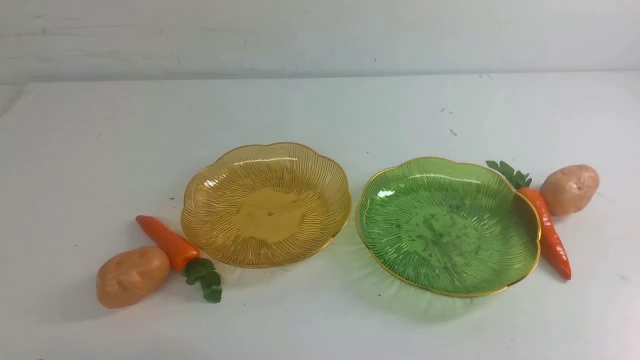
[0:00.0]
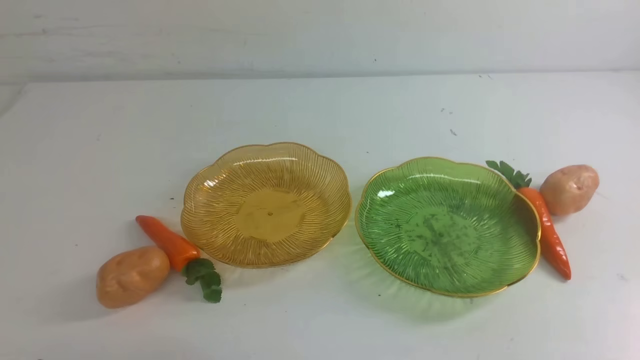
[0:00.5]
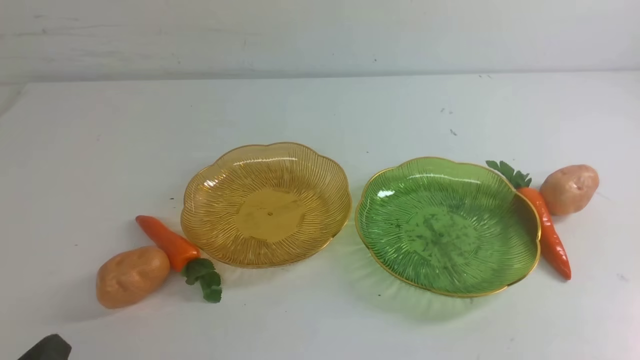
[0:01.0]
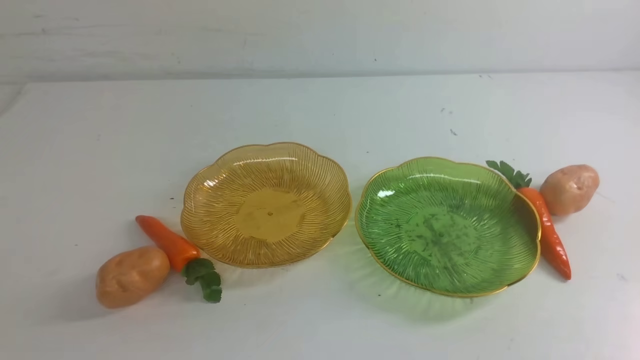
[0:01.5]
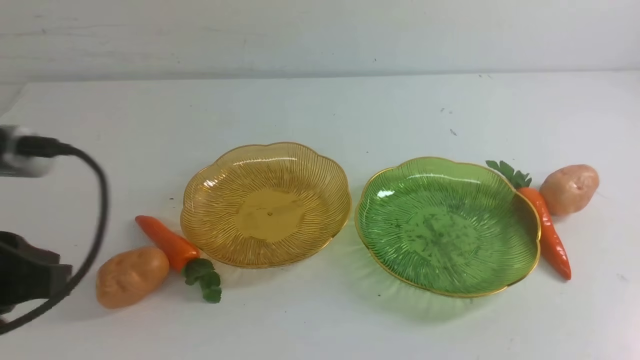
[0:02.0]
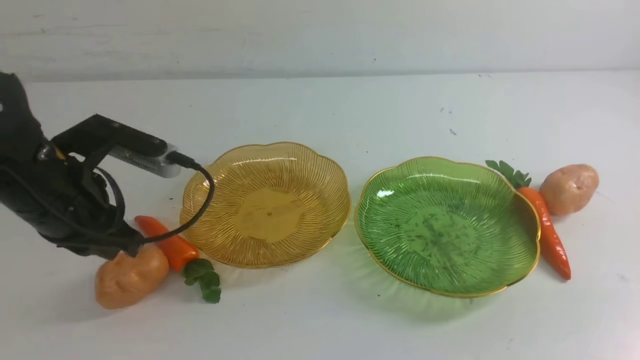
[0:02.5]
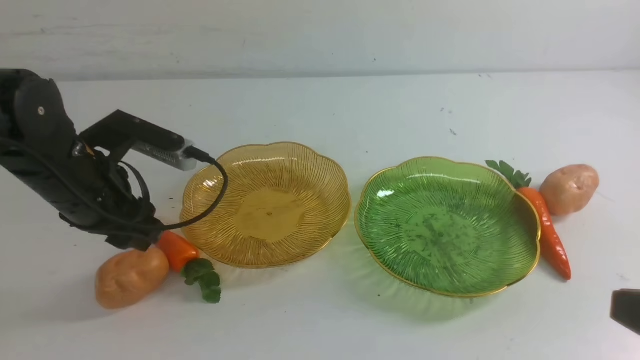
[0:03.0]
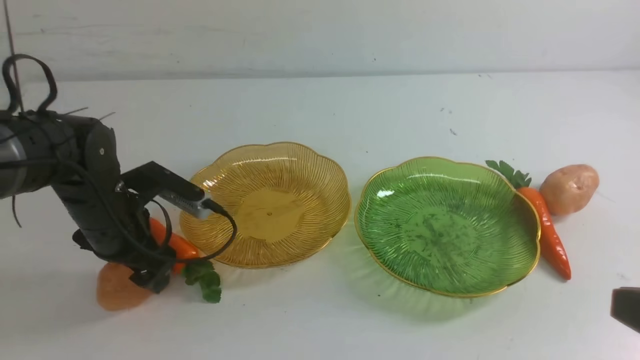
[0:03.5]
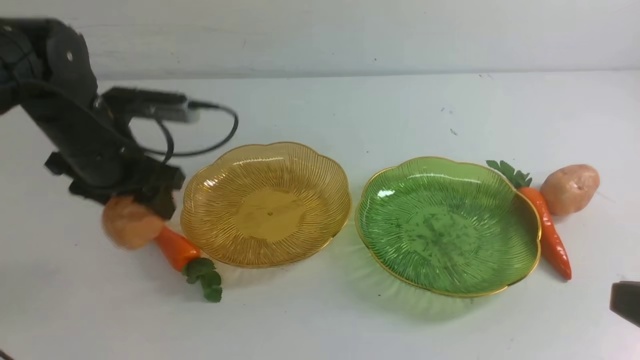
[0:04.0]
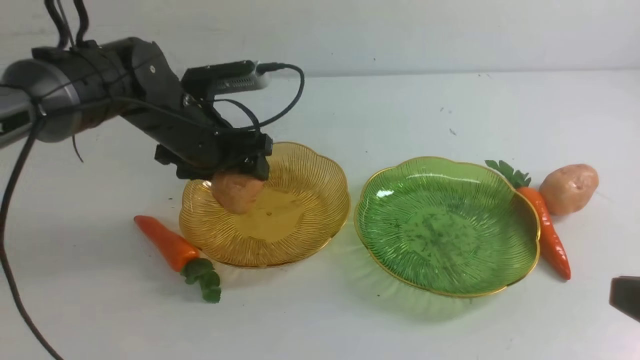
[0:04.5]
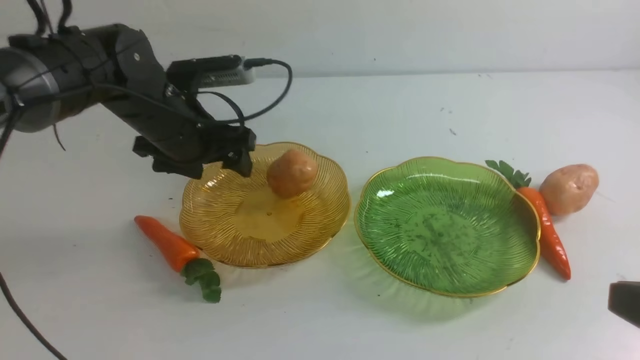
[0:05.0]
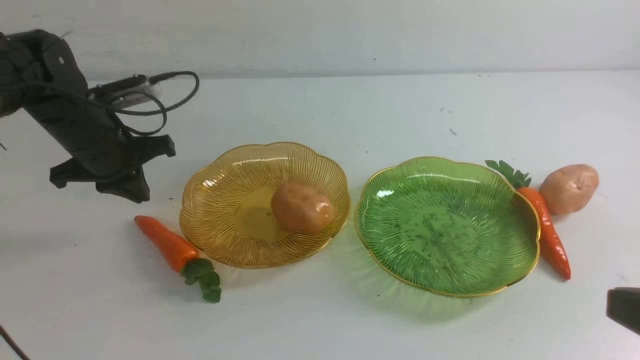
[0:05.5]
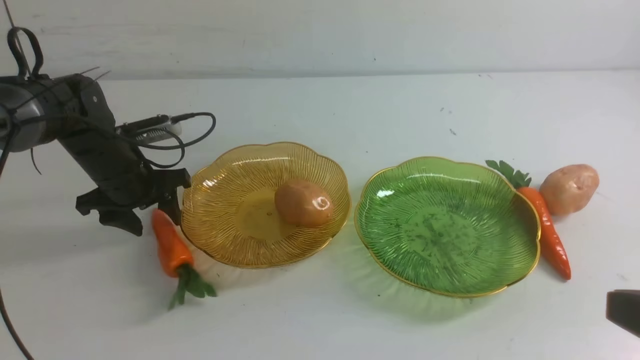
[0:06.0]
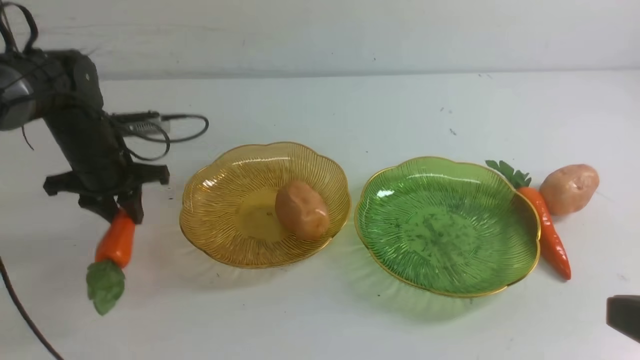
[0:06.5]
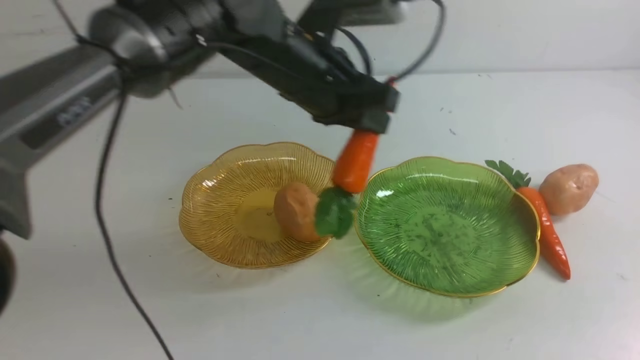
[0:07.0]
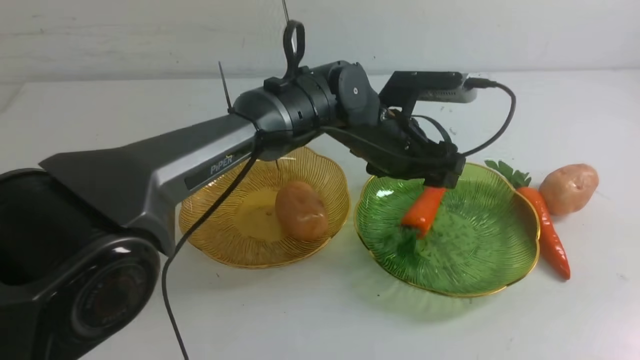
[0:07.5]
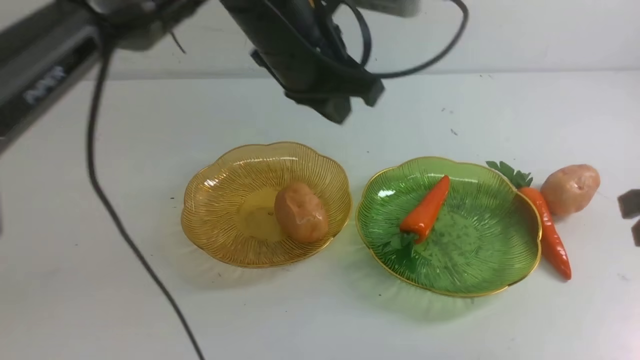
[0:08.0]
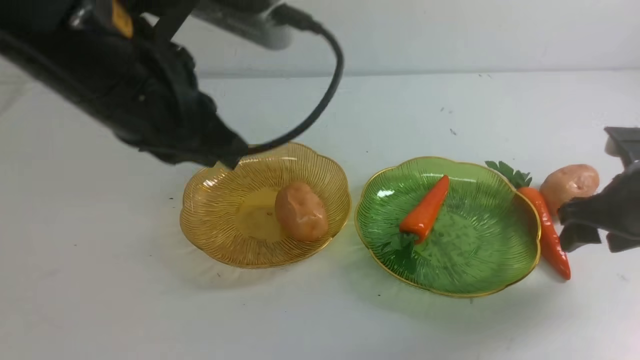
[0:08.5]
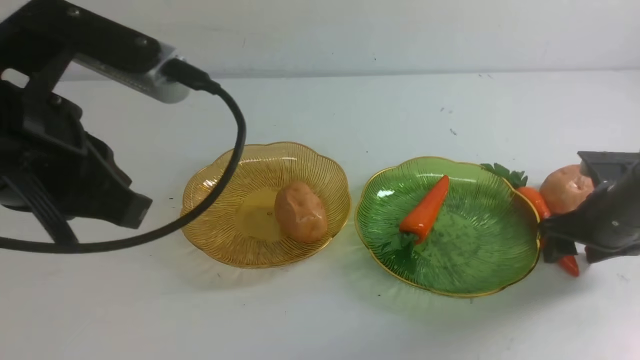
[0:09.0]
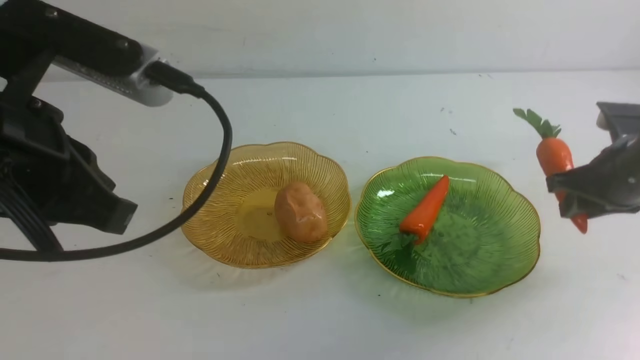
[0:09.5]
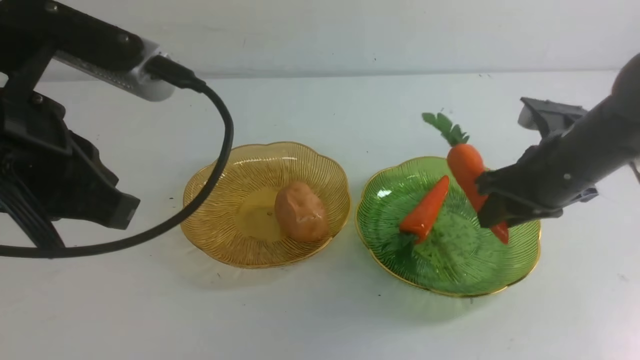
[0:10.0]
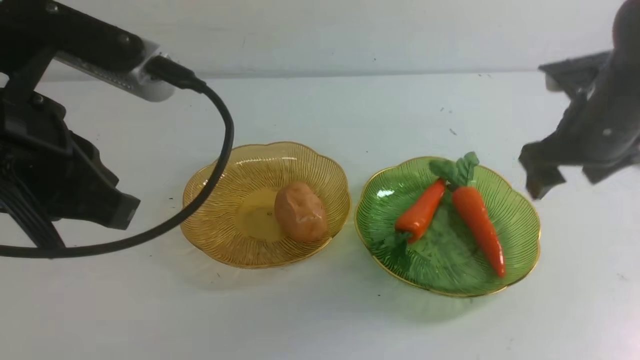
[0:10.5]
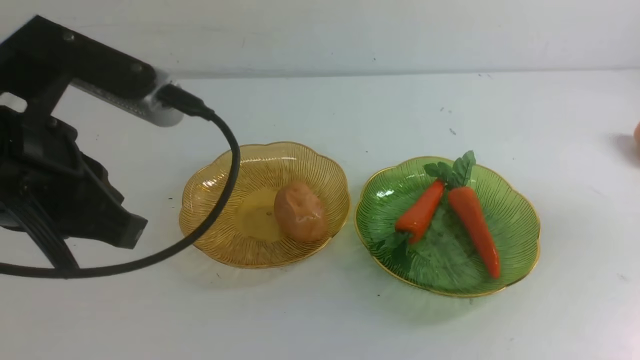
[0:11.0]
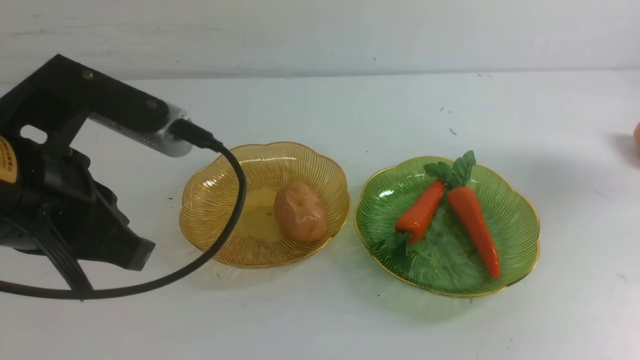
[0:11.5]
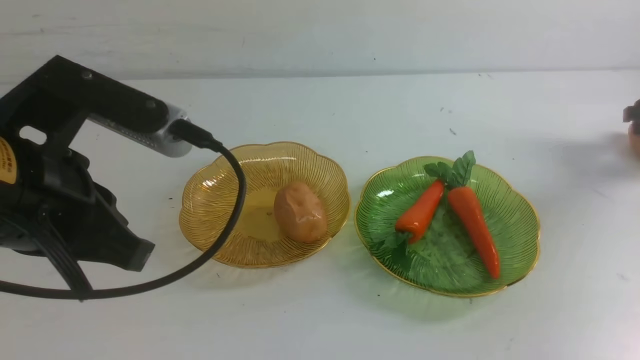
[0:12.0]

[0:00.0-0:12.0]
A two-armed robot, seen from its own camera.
Step, 0:00.0 to 0:04.5: Grab a potato with your left arm and put it on the left plate.
Step, 0:05.0 to 0:07.5: use the left arm to grab a carrot and put it into the right plate.
Step, 0:08.0 to 0:10.0: use the right arm to grab a carrot and put it into the right plate.
0:00.0 to 0:02.0: The left gripper shifts approximately 20 cm forward and upward.
0:02.0 to 0:04.0: The right gripper shifts roughly 10 cm upward; the left gripper moves forward and to the right, some 20 cm, and opens up.
0:04.0 to 0:06.0: The left gripper is displaced to the left by roughly 5 cm, and closes up.
0:06.0 to 0:08.0: The left gripper shifts approximately 25 cm backward and upward, and travels to the right and back again, about 25 cm each way; the right gripper heads forward and downward, covering approximately 30 cm, and opens up.
0:08.0 to 0:10.0: The right gripper travels upward and to the left by roughly 10 cm, and closes, then reopens.
0:10.0 to 0:12.0: The right gripper goes some 30 cm to the right, forward and downward.

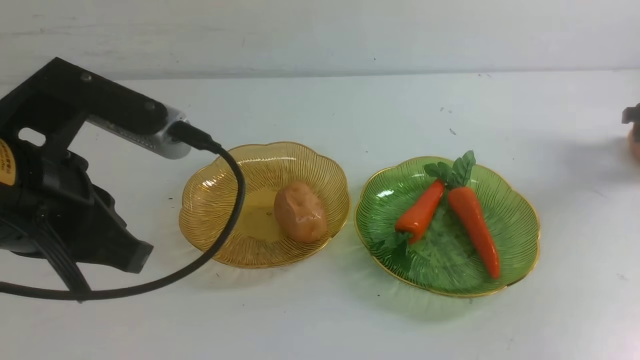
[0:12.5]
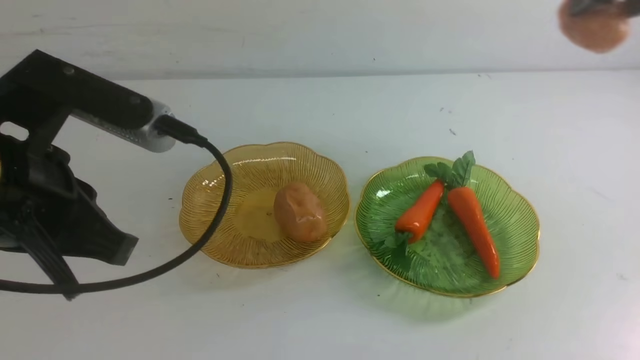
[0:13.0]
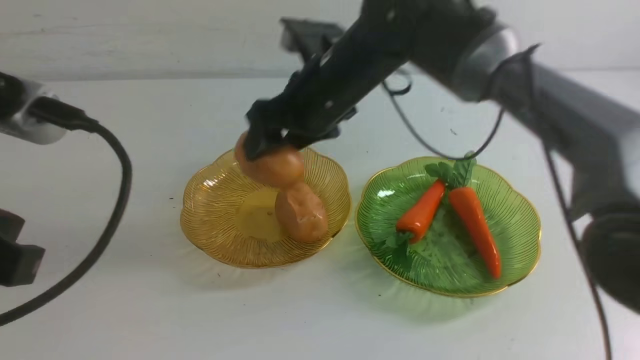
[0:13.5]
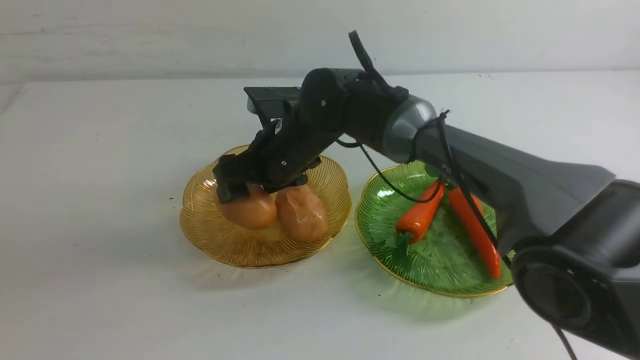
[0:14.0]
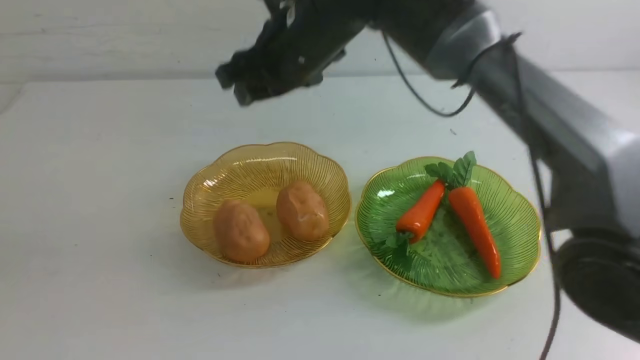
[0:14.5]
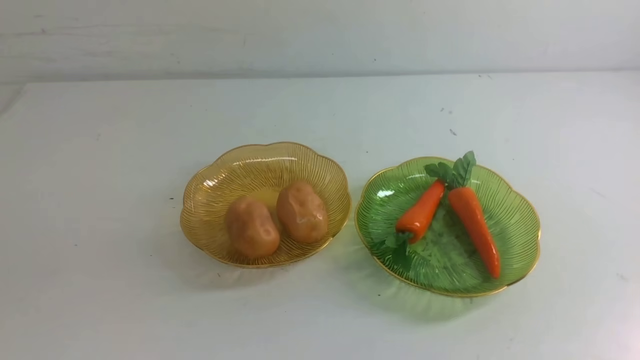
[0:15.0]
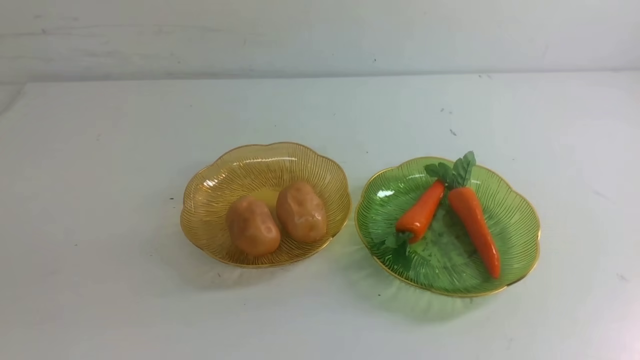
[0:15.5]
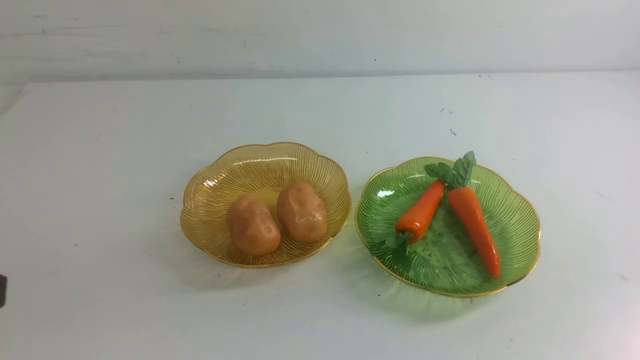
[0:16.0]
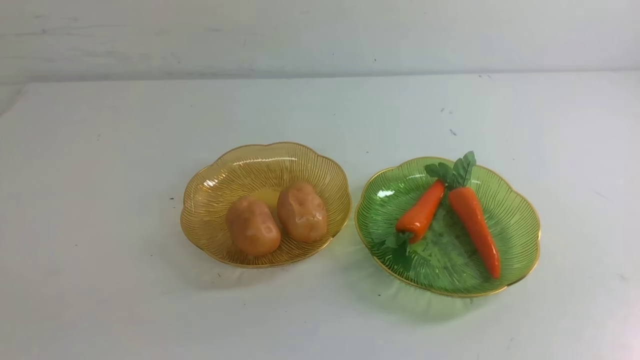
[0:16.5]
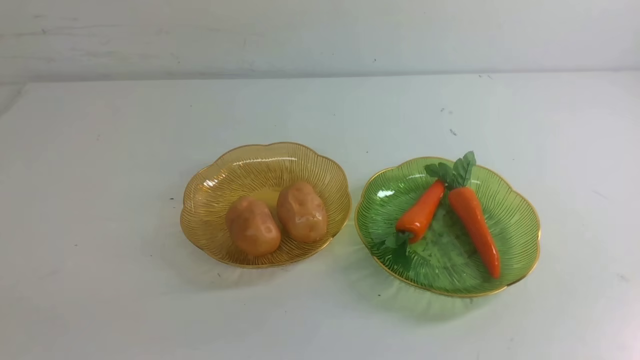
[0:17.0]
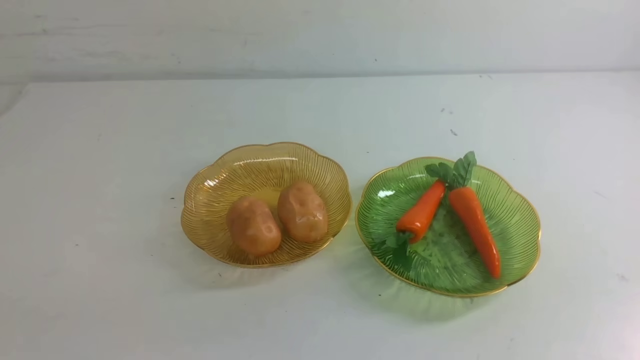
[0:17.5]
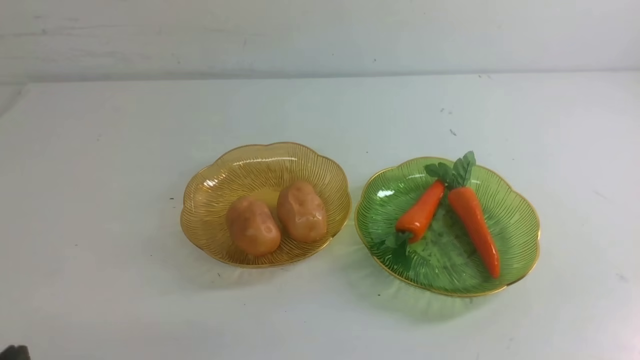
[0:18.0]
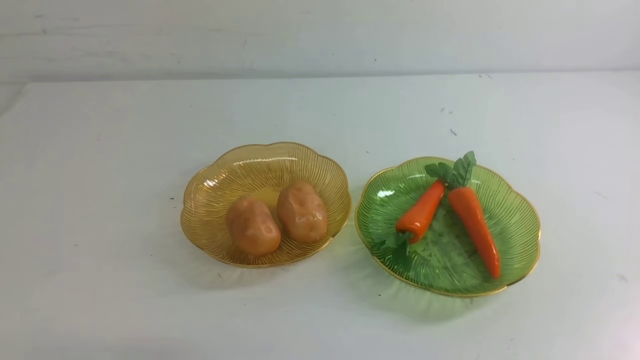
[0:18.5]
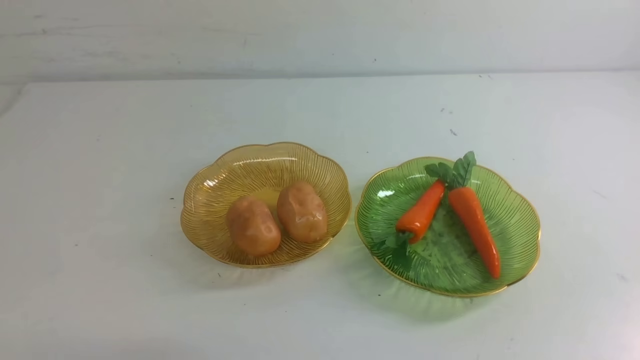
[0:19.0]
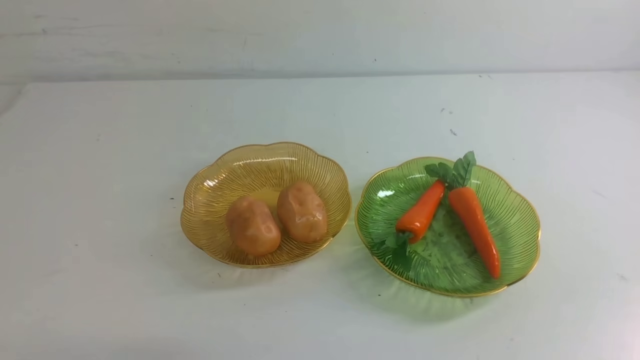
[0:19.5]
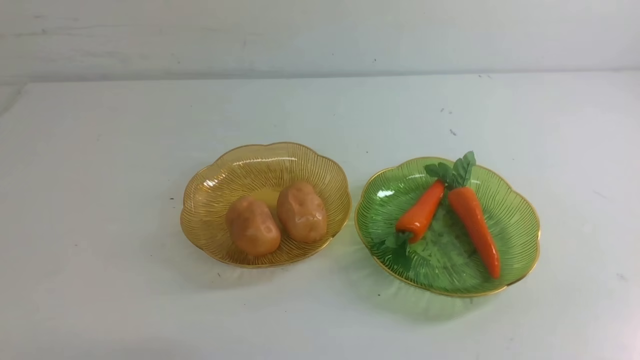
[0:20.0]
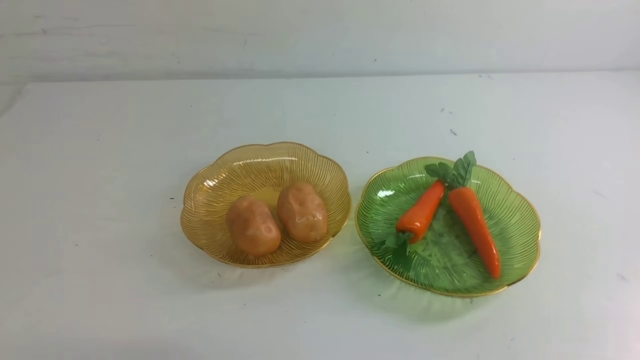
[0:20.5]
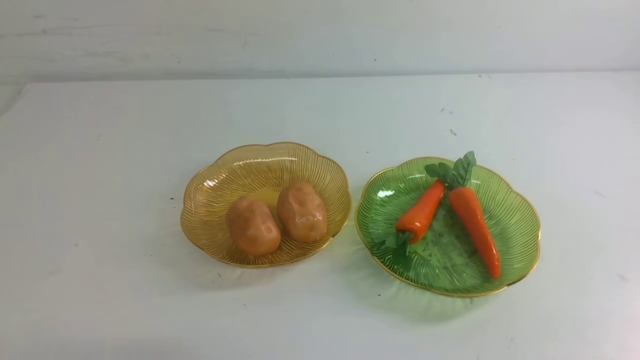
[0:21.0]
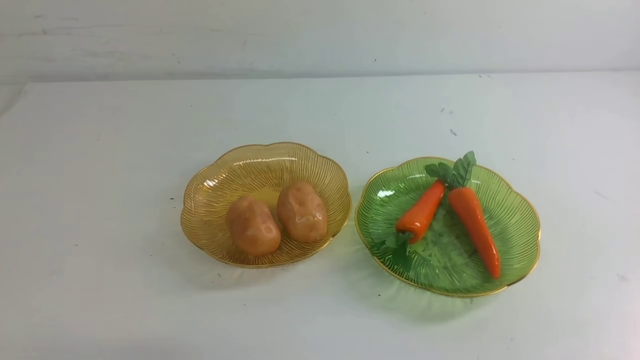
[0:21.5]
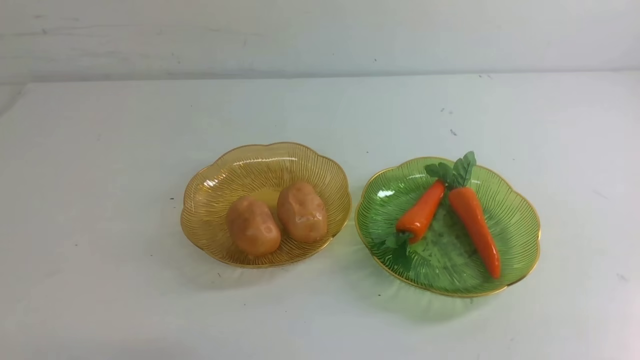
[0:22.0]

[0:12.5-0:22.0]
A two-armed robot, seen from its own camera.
0:12.5 to 0:14.5: The left gripper moves backward, to the left and upward, approximately 15 cm; the right gripper goes about 40 cm to the left, upward and backward, and closes up.
0:14.5 to 0:16.5: The right gripper moves backward, to the right and downward, about 40 cm. Meanwhile the left gripper shifts some 10 cm downward and backward.
